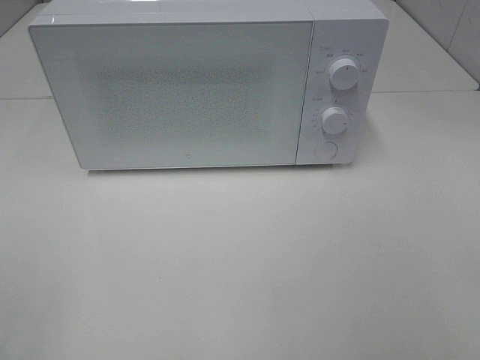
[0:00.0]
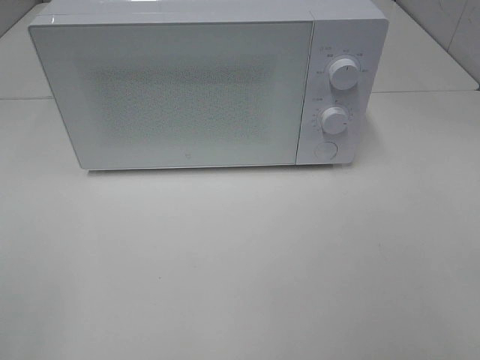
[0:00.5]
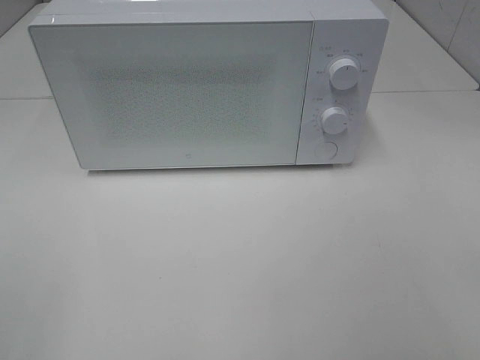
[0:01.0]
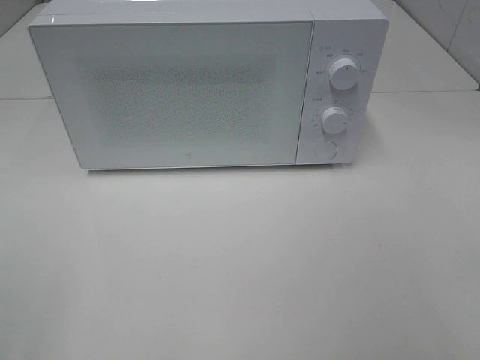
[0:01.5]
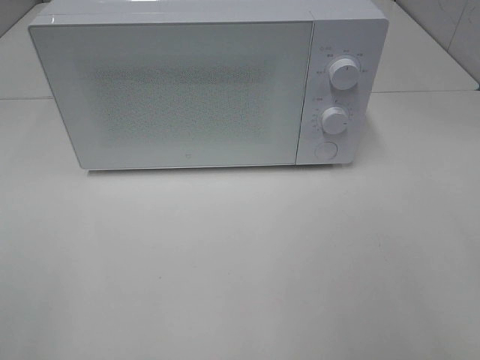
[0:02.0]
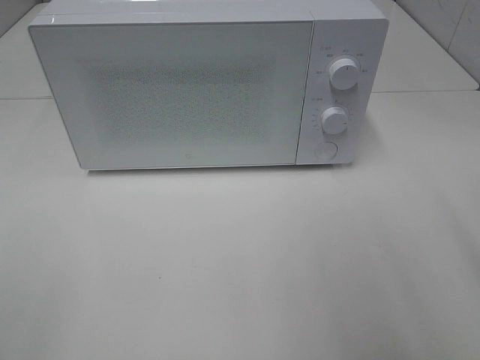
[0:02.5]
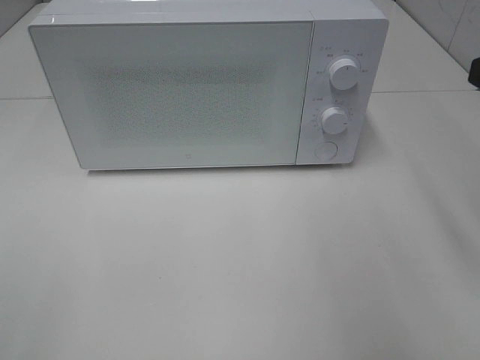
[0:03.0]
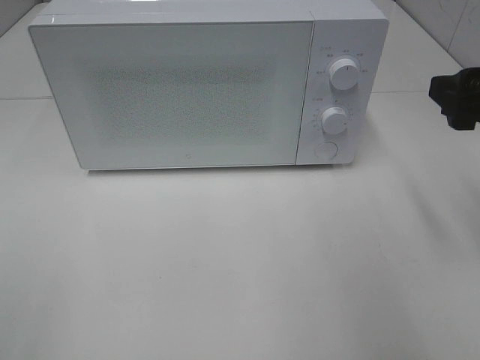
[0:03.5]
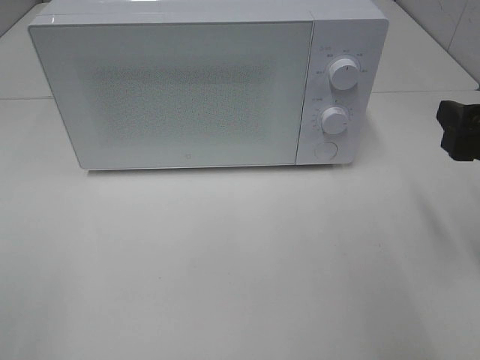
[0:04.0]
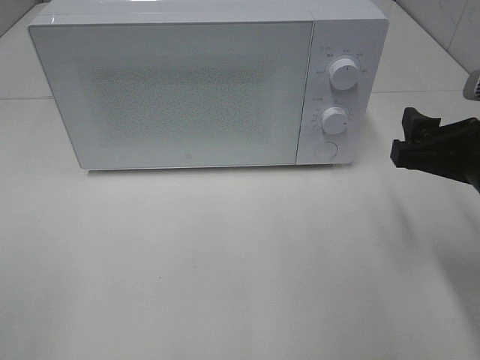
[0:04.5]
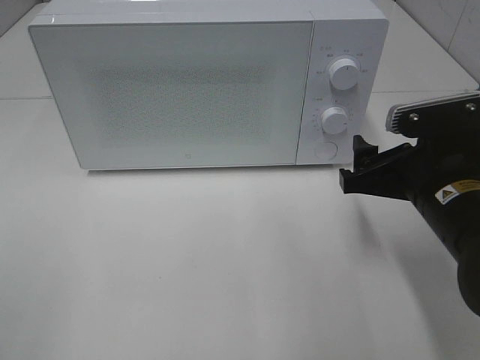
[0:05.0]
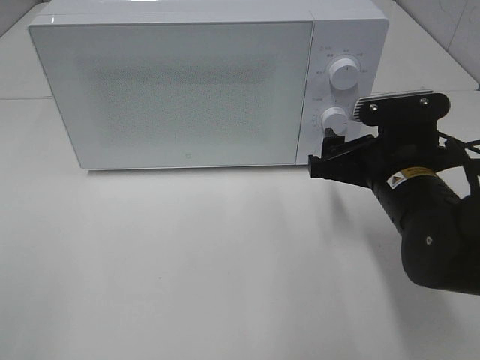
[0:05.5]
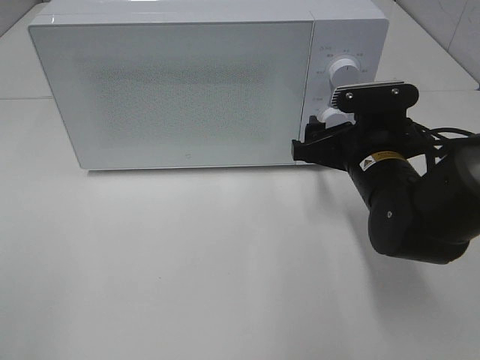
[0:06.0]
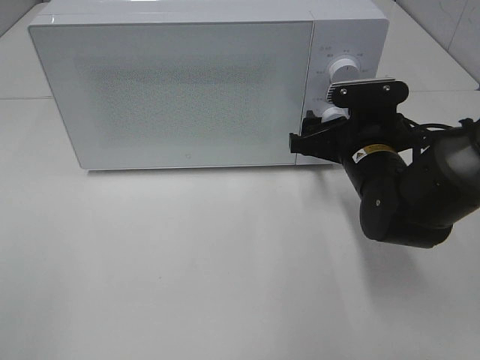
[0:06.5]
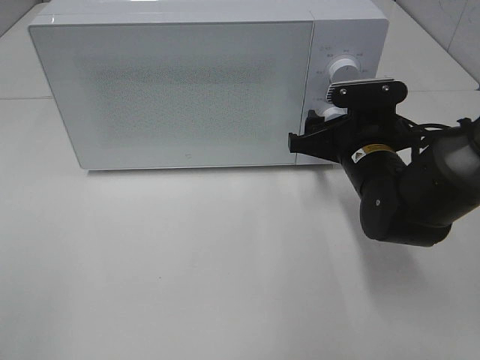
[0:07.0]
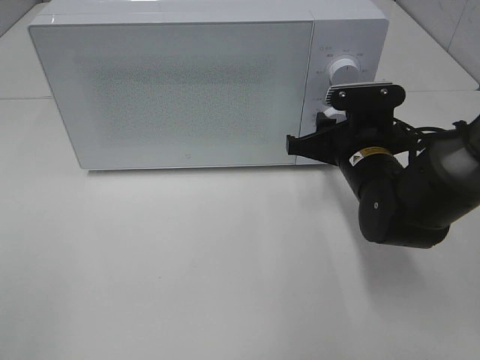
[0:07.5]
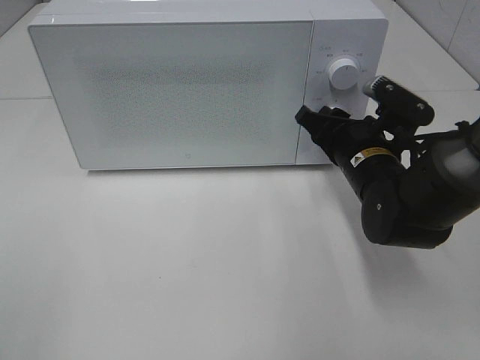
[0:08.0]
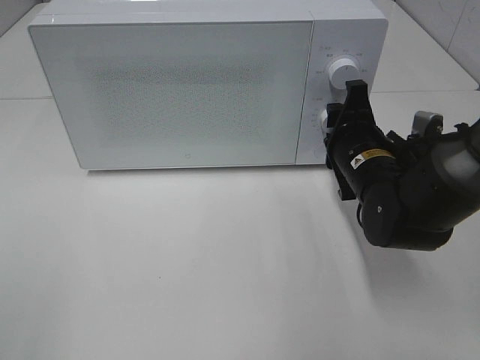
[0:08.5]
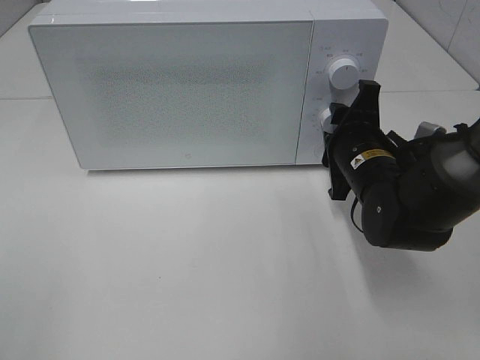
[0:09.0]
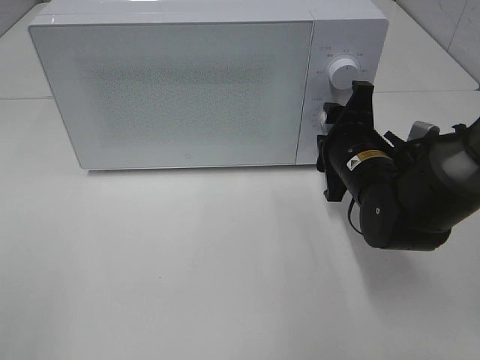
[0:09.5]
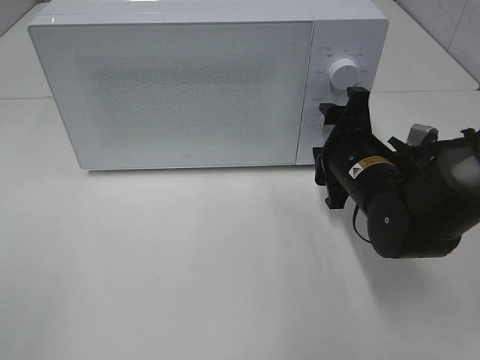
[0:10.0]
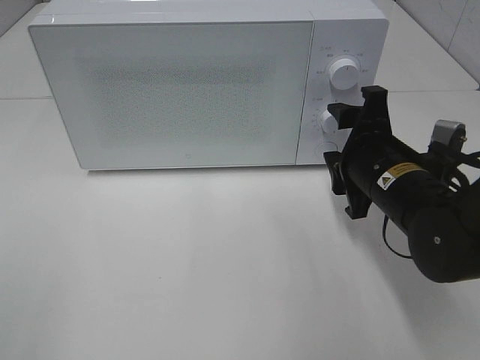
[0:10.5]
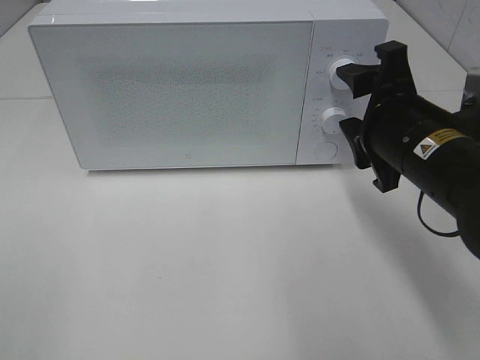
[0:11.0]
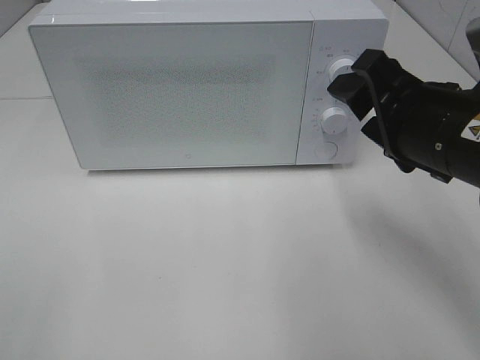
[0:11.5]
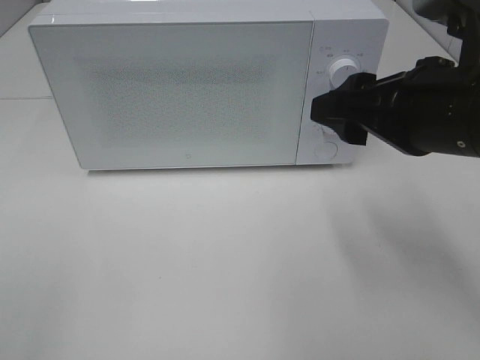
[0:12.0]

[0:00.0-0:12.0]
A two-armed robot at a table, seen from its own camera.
Task of the whole recording: Heat the burger.
Step, 0:00.0 to 0:09.5: Right hand: twist timer button.
0:02.0 to 0:04.0: The right gripper travels forward and downward by about 15 cm.
0:04.0 to 0:06.0: The right gripper goes approximately 15 cm to the left, forward and downward.
0:06.0 to 0:08.0: The right gripper closes its fingers.
0:10.0 to 0:12.0: The right gripper travels upward and backward by approximately 20 cm.

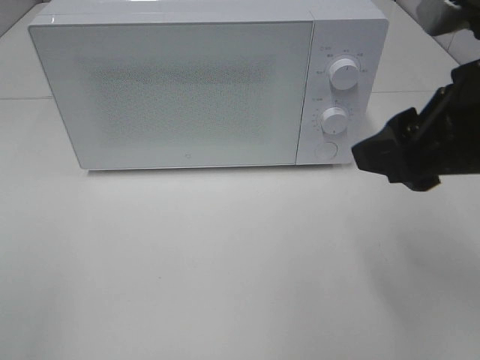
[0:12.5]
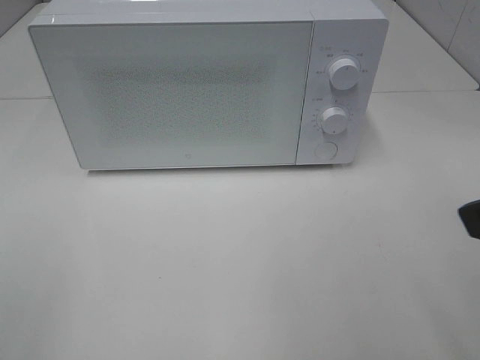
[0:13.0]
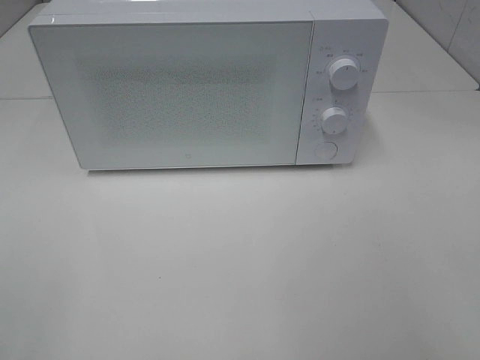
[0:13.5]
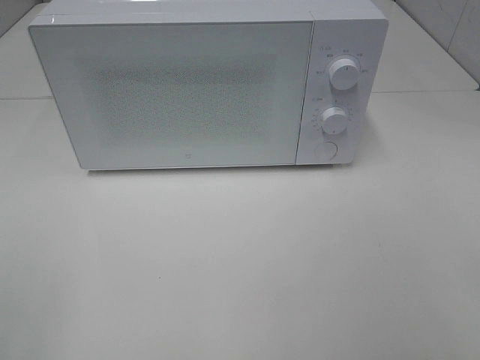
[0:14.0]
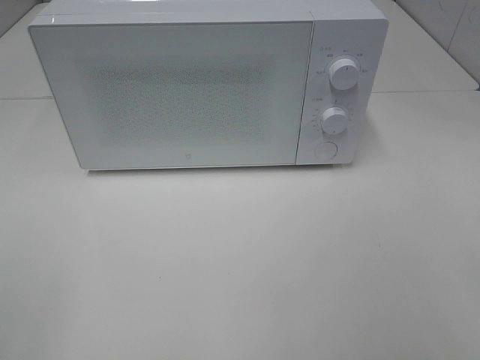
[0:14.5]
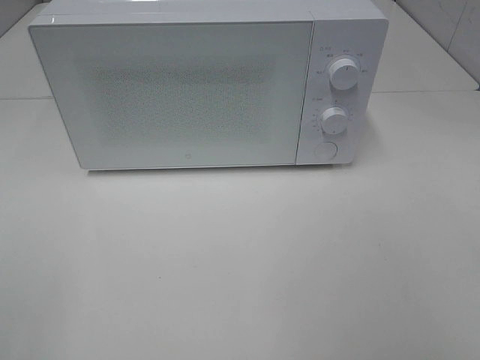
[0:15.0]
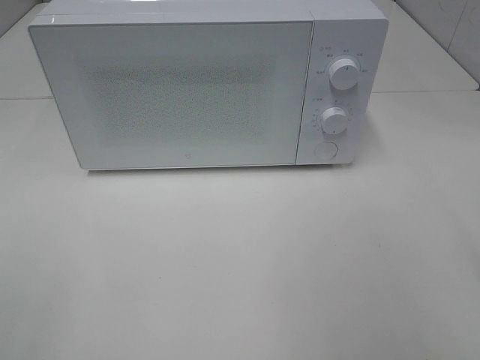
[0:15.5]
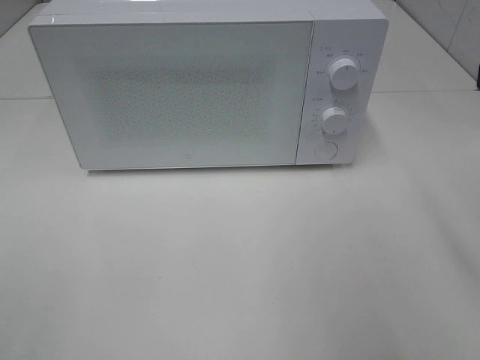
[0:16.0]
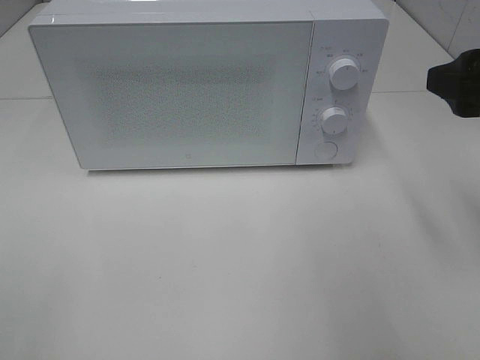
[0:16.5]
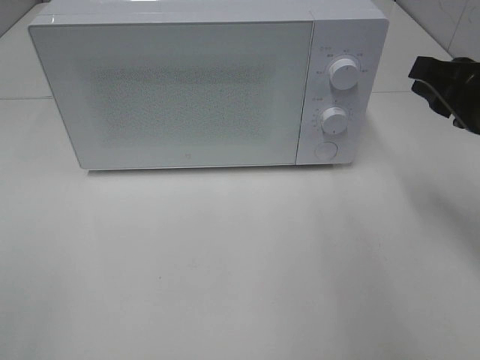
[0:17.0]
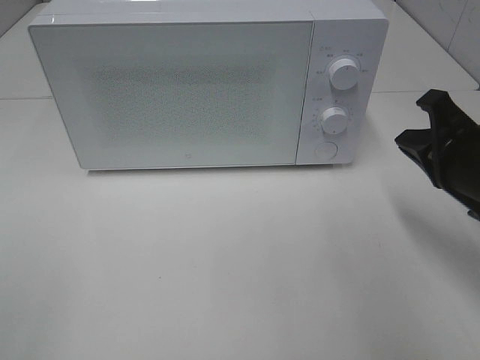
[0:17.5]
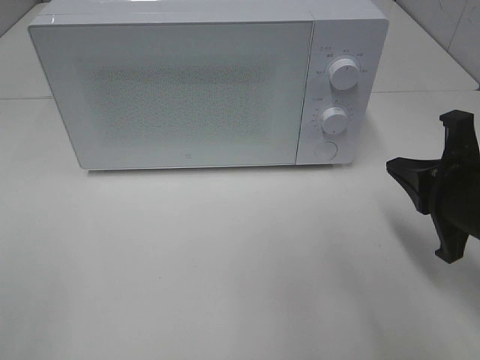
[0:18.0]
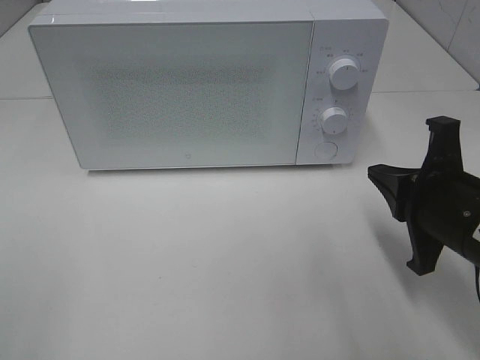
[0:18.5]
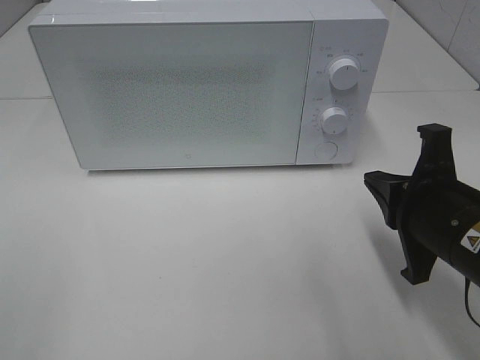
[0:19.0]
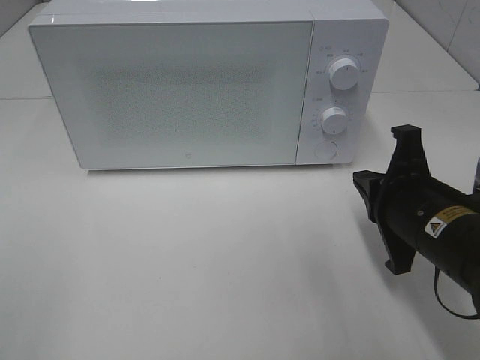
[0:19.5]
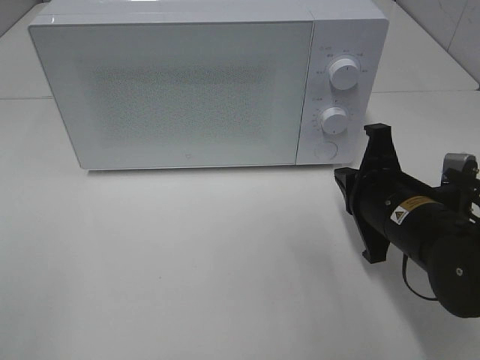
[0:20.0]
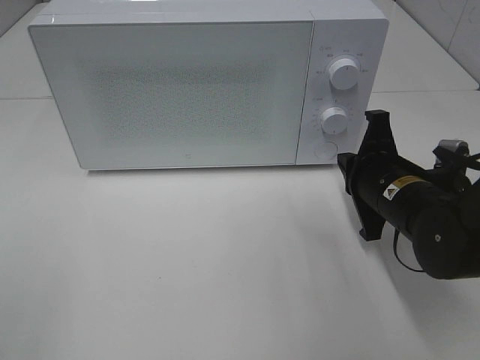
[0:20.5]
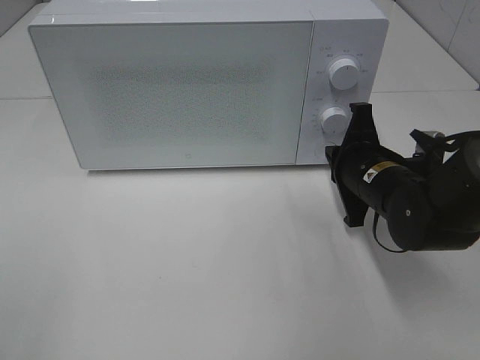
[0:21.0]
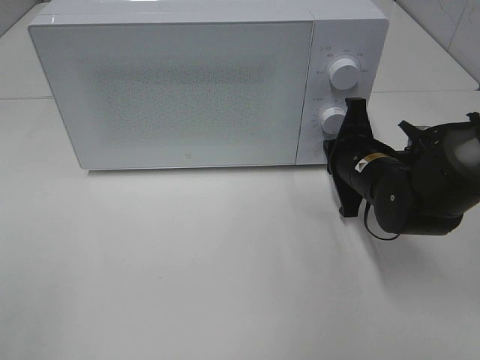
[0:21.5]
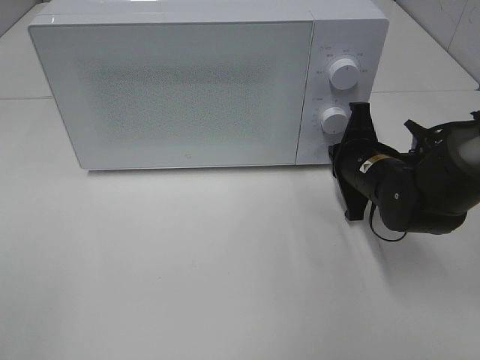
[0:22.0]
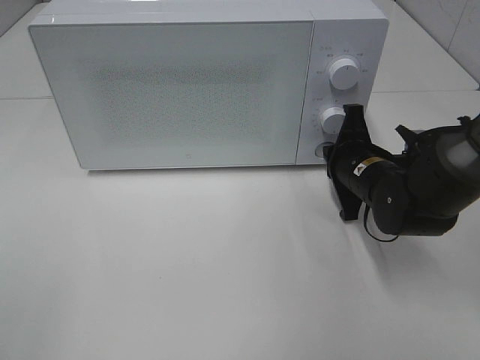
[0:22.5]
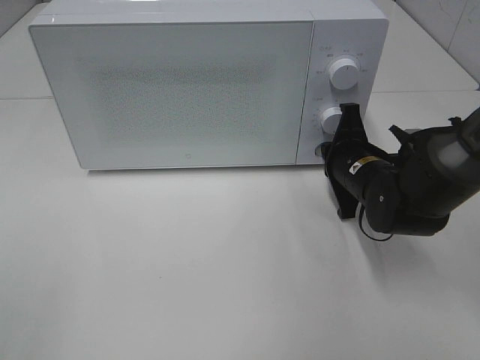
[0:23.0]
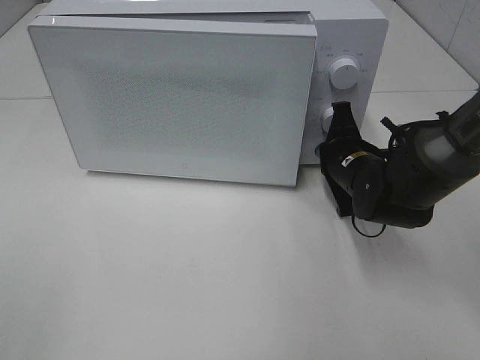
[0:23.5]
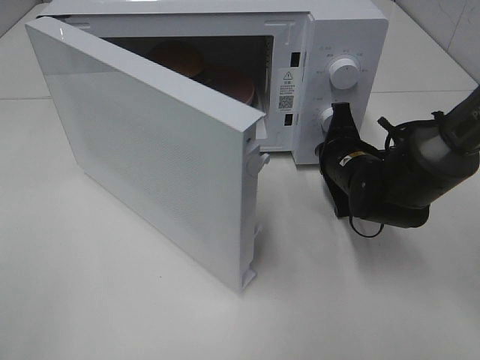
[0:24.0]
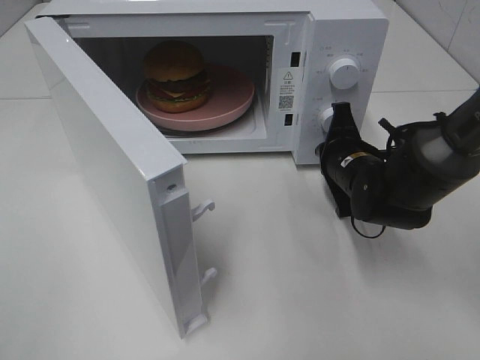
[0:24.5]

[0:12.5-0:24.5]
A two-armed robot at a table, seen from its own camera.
Task of the whole recording: Heat the burger.
0:12.5 to 0:14.5: The right gripper travels backward and to the right by roughly 20 cm.
0:14.5 to 0:16.5: The right gripper moves forward, approximately 20 cm.
0:16.5 to 0:18.5: The right gripper is displaced downward by roughly 10 cm, and closes its fingers.
0:18.5 to 0:20.5: The right gripper is displaced forward by approximately 10 cm.
0:20.5 to 0:22.5: The right gripper is displaced forward by some 5 cm.

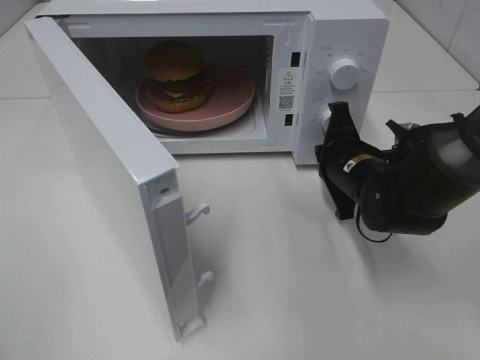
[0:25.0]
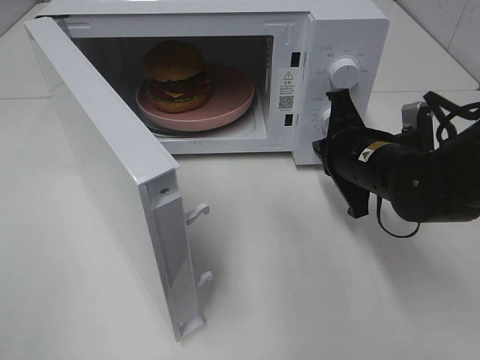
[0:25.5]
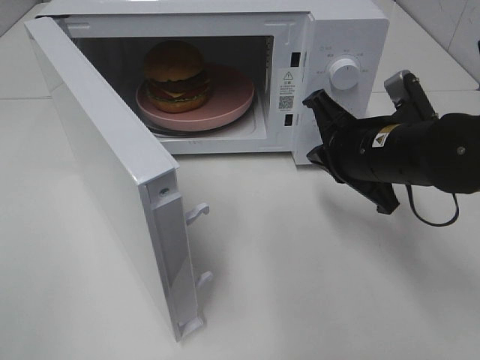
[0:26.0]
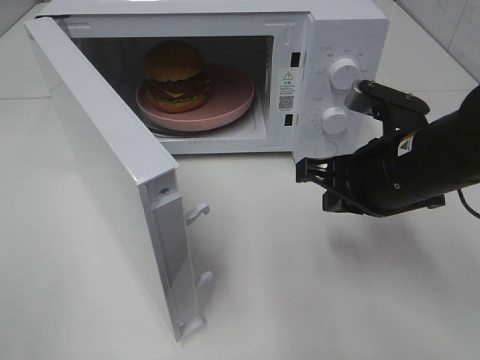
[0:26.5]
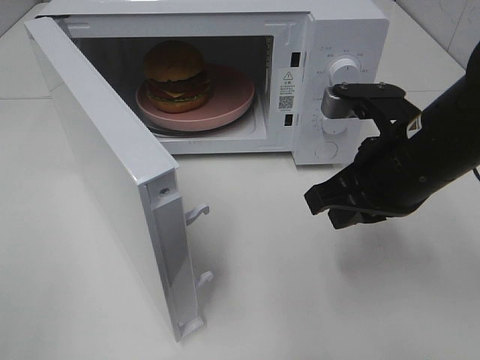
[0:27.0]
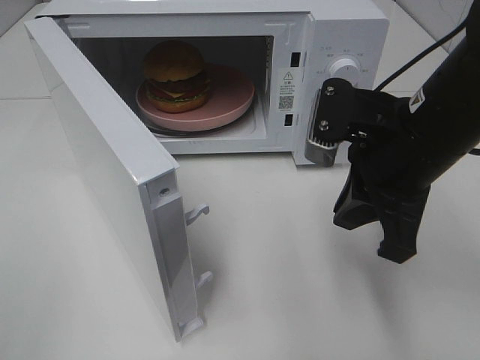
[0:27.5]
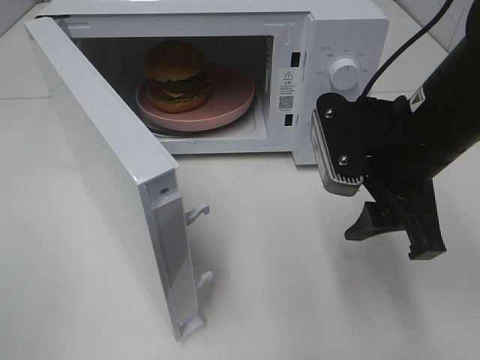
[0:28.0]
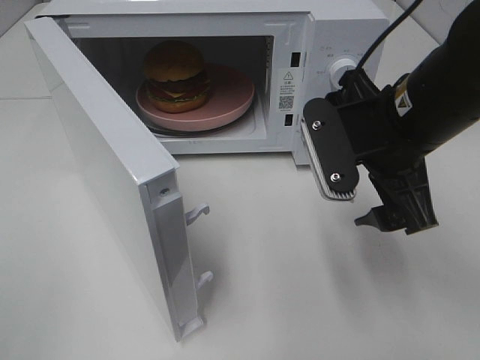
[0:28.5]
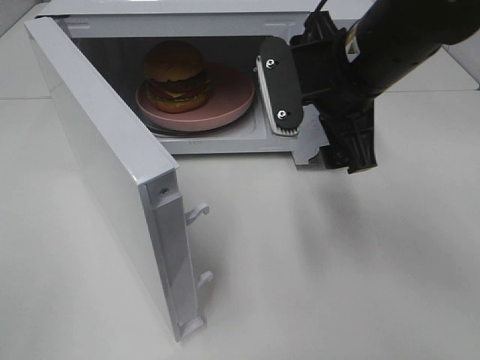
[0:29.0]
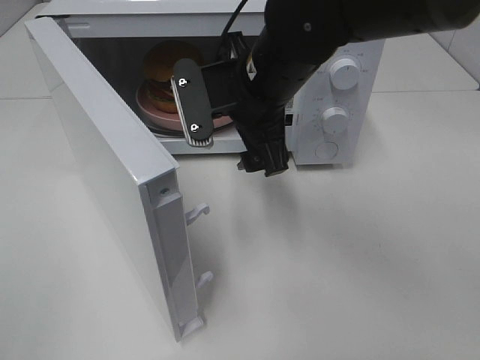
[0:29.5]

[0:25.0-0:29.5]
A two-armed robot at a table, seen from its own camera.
Task of the whole recording: Heat the burger.
0:25.0 to 0:27.0: The right gripper goes approximately 15 cm upward and backward.
0:27.0 to 0:29.5: The right gripper heads to the left and forward, covering some 15 cm, and opens its fingers.
